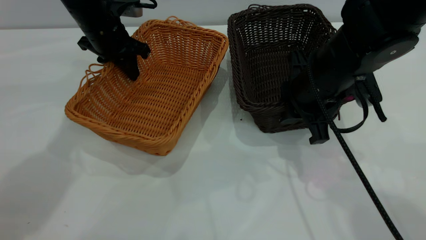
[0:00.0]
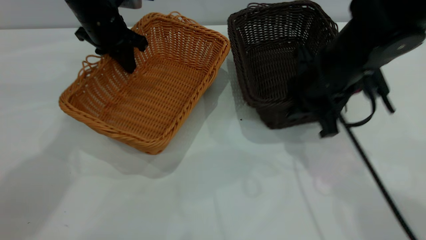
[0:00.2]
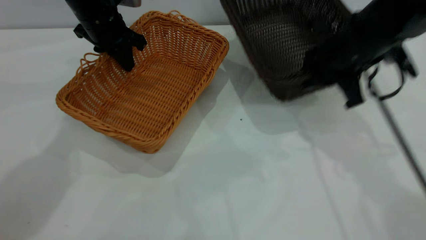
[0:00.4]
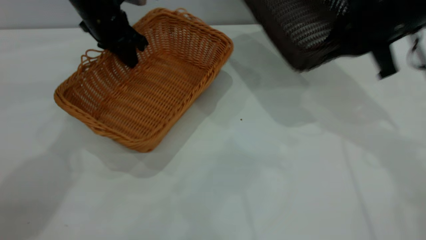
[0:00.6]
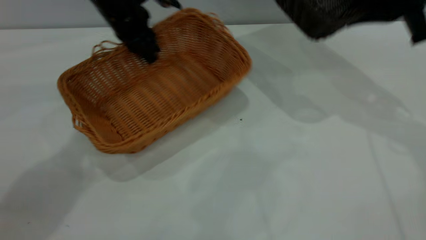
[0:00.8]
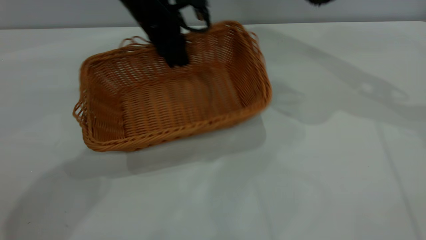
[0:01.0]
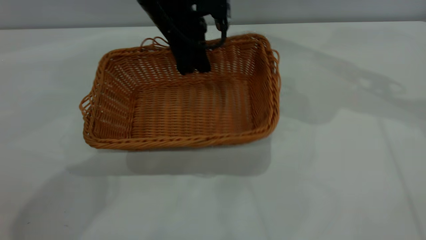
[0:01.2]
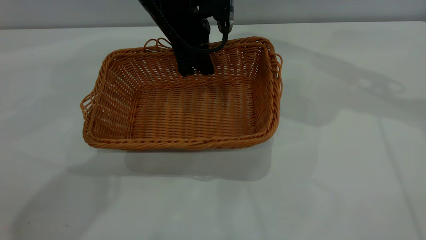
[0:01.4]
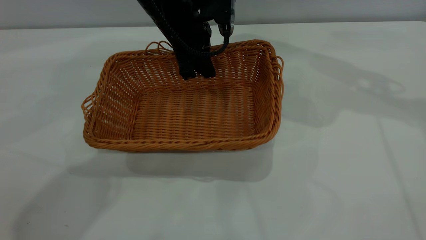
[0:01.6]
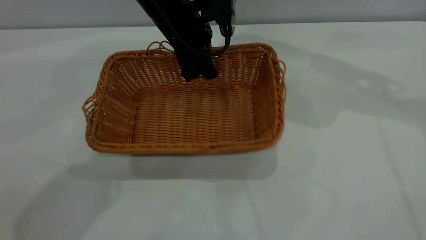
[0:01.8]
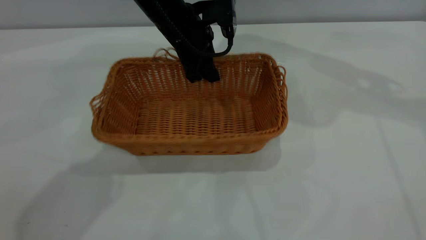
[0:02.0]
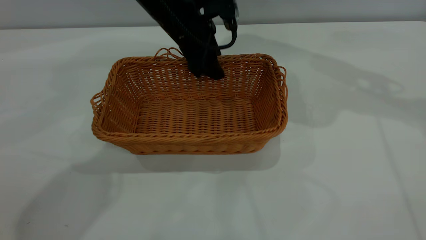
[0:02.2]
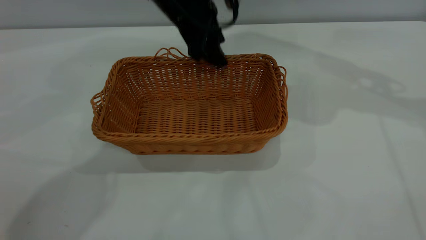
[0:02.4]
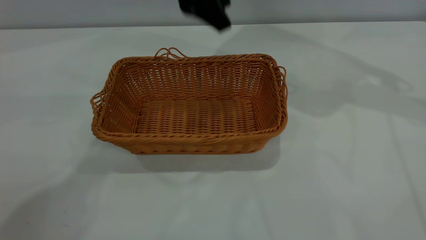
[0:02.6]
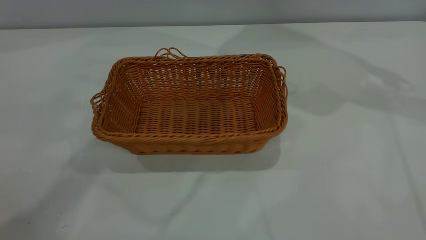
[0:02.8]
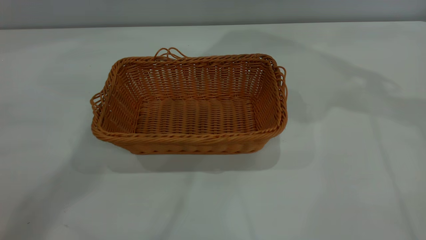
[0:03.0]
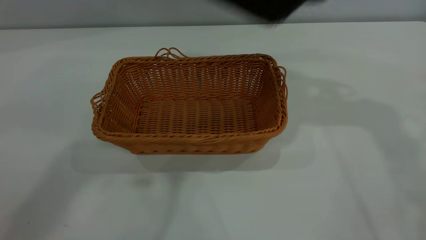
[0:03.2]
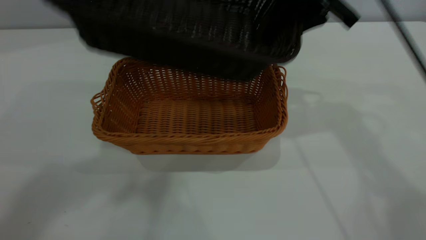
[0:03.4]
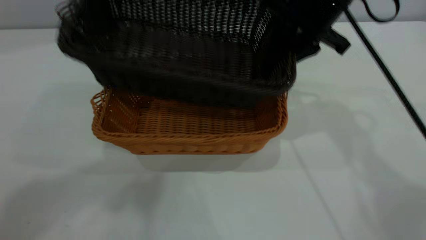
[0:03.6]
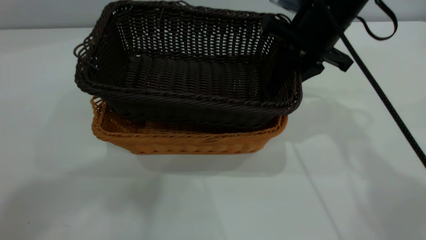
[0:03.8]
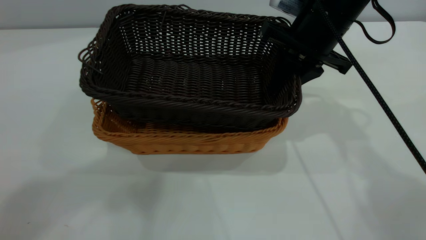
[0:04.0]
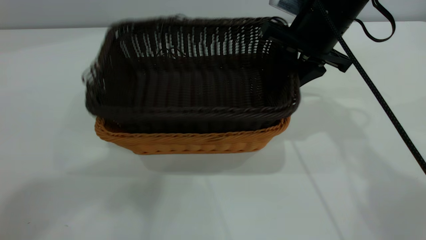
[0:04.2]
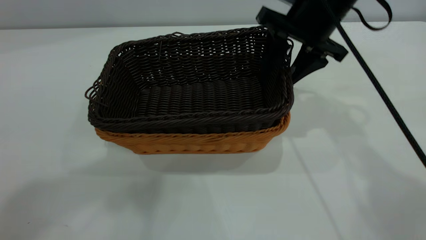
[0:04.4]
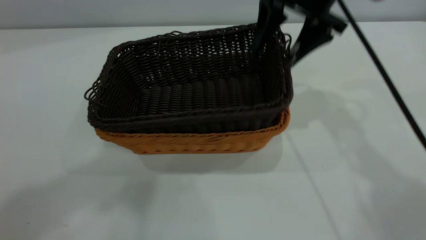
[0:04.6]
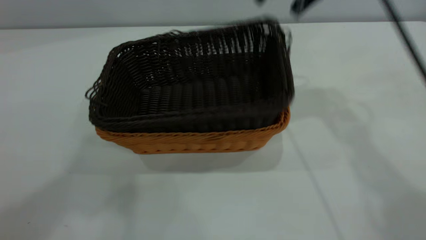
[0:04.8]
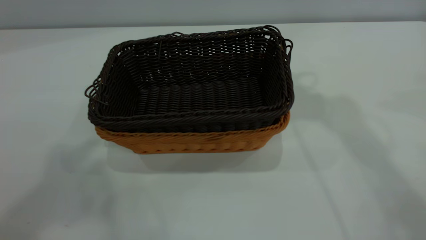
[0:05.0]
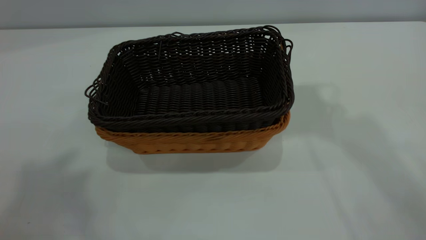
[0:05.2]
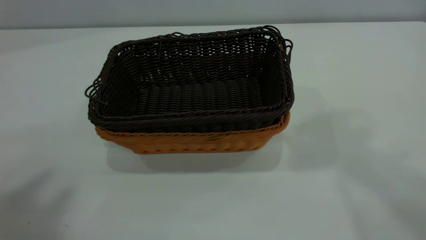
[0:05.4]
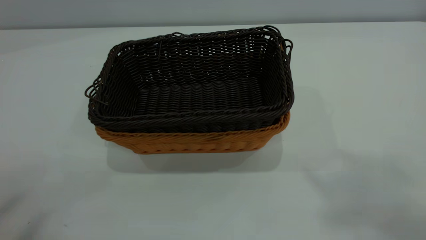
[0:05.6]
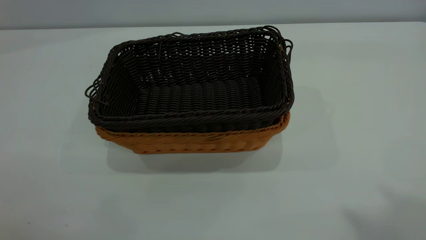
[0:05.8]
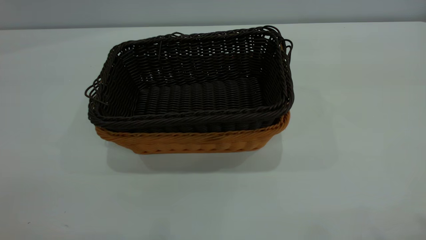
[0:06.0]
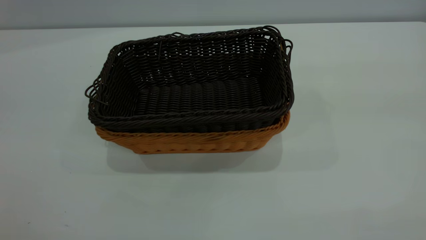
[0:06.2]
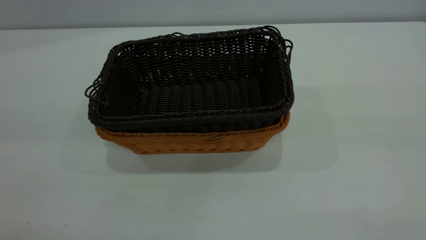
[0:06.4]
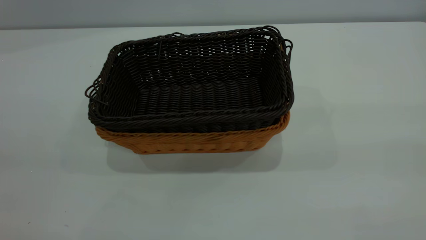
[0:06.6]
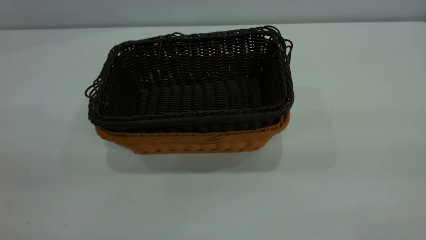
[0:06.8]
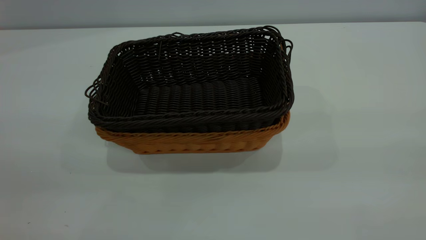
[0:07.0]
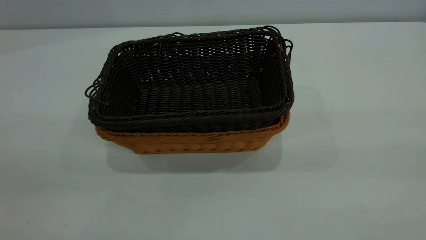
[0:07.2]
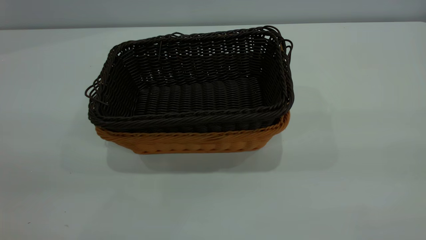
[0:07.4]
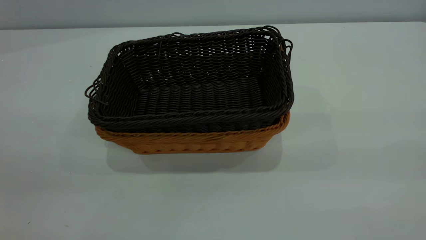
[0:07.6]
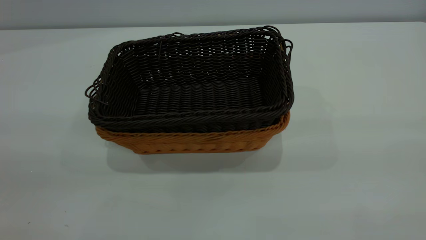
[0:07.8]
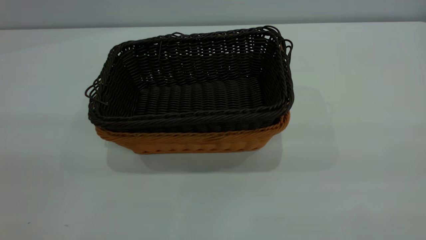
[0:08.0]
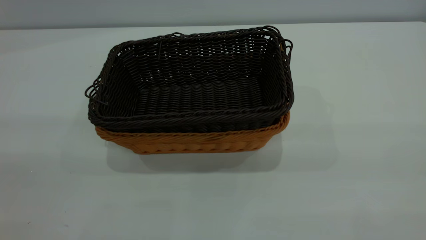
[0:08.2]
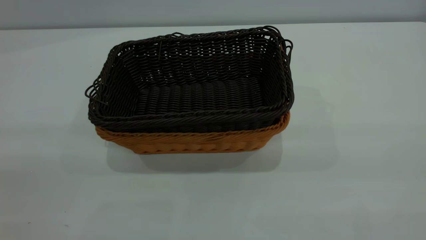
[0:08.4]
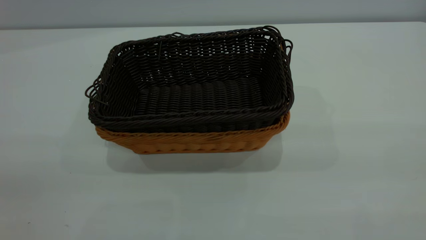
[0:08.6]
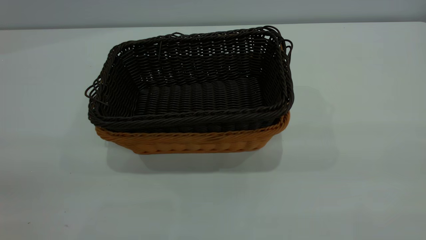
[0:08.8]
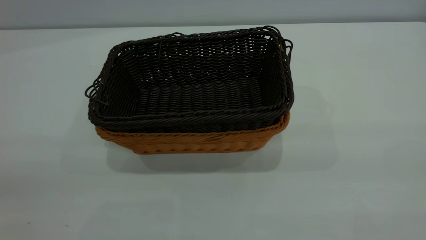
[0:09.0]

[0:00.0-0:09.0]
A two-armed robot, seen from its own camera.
Task of the whole recording: the left gripper grasp the brown basket and place it in the center of the table, the right gripper grasp the black basket and place it inside the brown one.
Step, 0:00.4 to 0:02.4: Place the light-colored basket in the center.
Step, 0:02.6 to 0:04.6: Place the dark basket on top of the light basket.
0:00.0 to 0:01.6: The right gripper shifts about 25 cm upward, to the right and forward. Meanwhile the left gripper travels to the right by roughly 15 cm.
0:01.6 to 0:03.0: The left gripper moves upward, roughly 30 cm, and opens up.
0:03.0 to 0:04.4: The right gripper shifts about 20 cm to the left and downward, and opens, while the left gripper is displaced upward and backward by roughly 15 cm.
0:04.4 to 0:06.0: The right gripper goes about 40 cm upward and backward; the left gripper goes some 25 cm backward and to the left.
